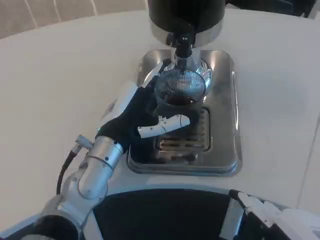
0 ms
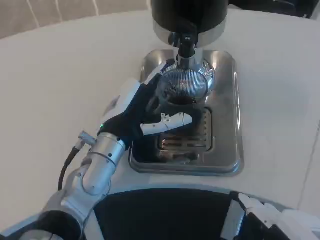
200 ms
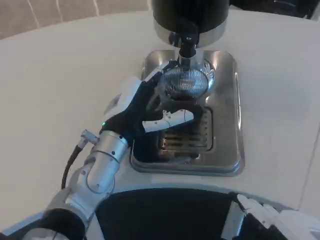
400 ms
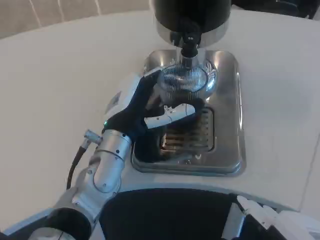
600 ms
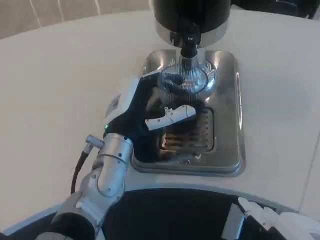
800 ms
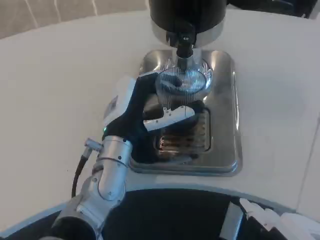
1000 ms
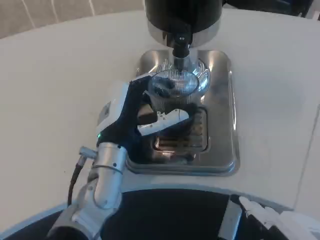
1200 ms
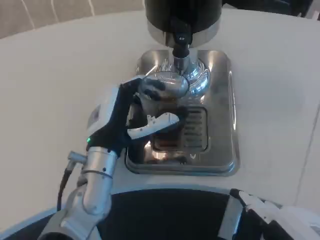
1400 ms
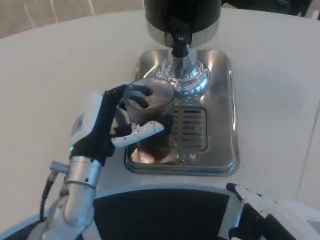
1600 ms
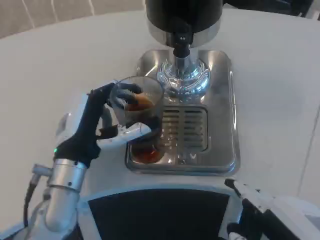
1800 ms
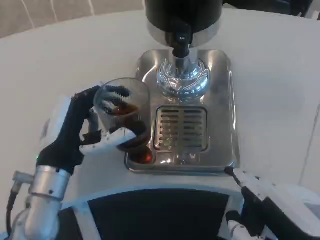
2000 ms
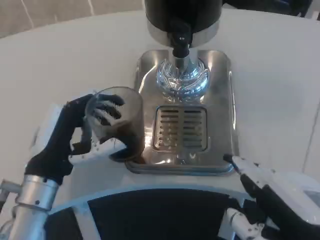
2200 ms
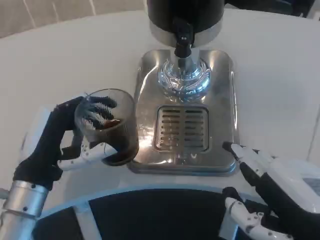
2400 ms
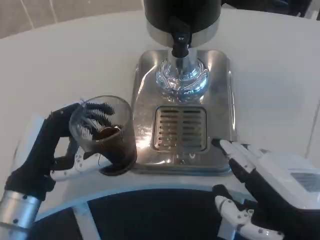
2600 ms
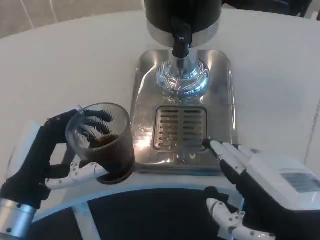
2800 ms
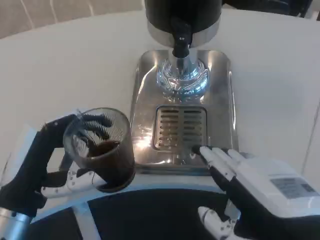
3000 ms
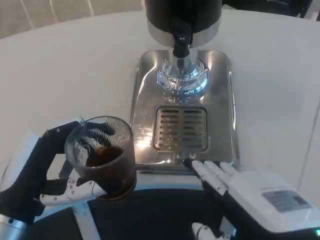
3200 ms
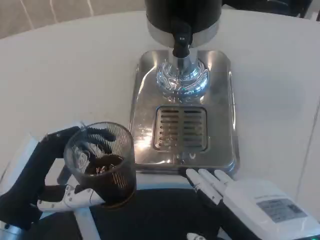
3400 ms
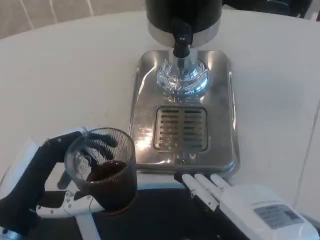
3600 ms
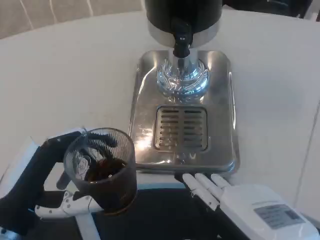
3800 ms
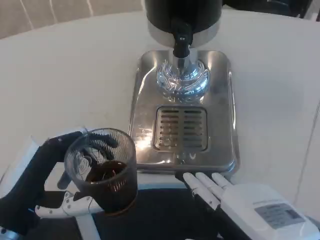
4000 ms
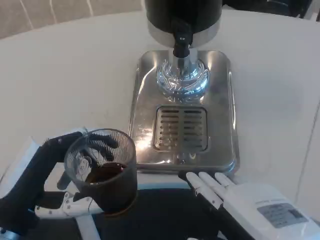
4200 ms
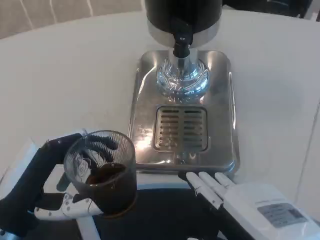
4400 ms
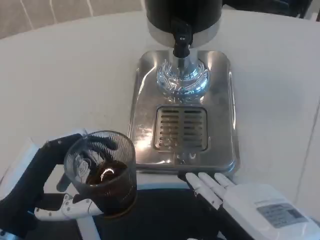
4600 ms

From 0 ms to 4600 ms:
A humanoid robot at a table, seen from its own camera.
Task of the whole recording: Grasp the cup under the faucet to collect the drink, then remove the cup.
From 0 ms to 1600 ms: The hands move only a little.
From 1600 ms to 3000 ms: The left hand travels backward and to the left by about 10 cm.

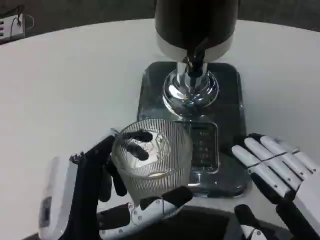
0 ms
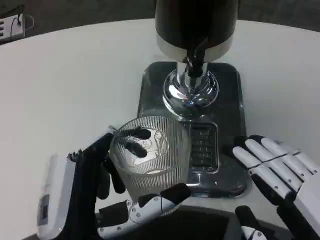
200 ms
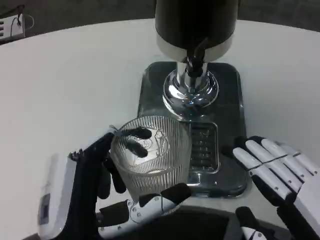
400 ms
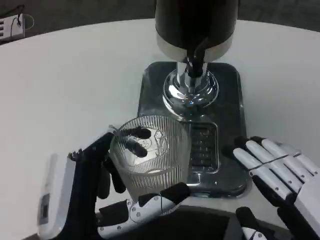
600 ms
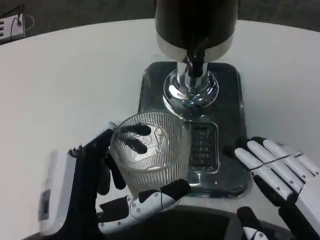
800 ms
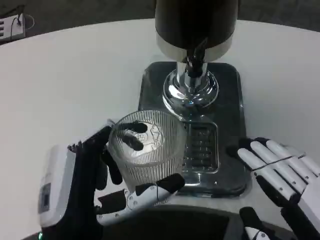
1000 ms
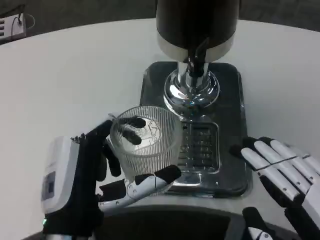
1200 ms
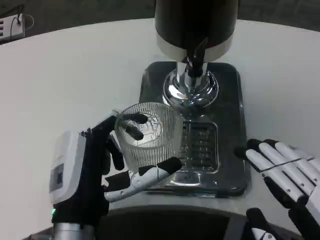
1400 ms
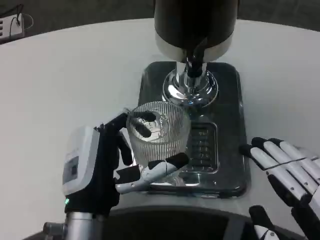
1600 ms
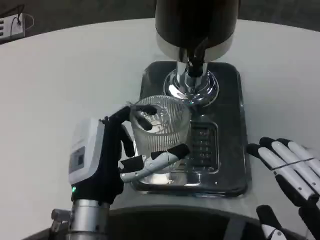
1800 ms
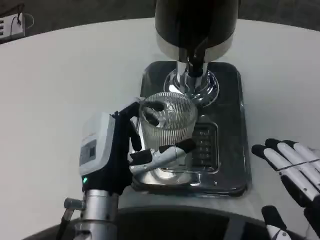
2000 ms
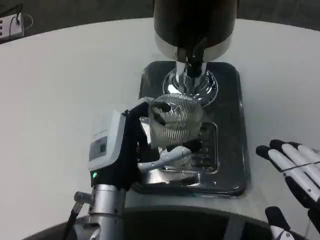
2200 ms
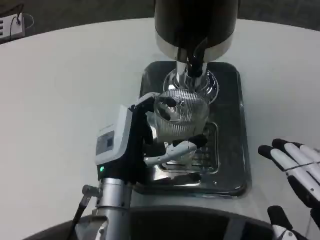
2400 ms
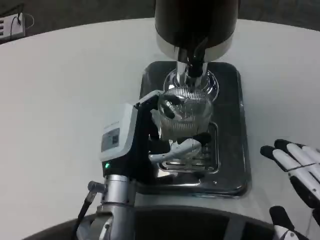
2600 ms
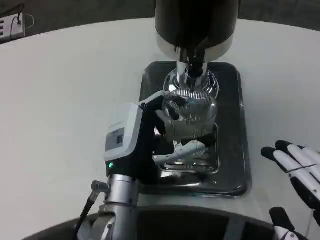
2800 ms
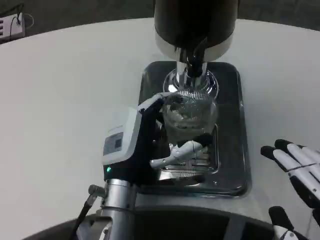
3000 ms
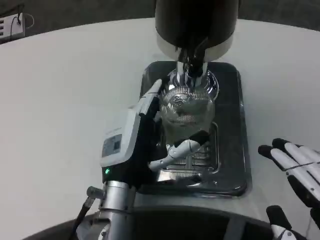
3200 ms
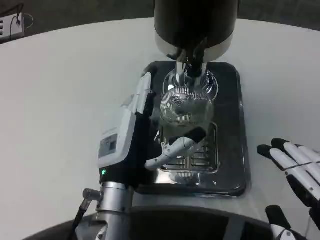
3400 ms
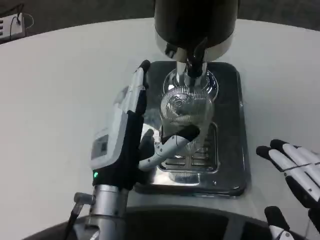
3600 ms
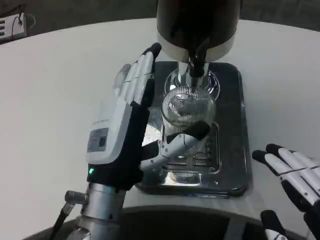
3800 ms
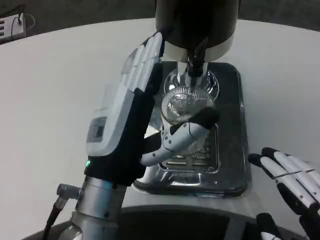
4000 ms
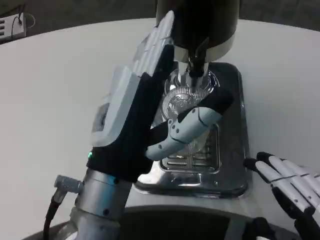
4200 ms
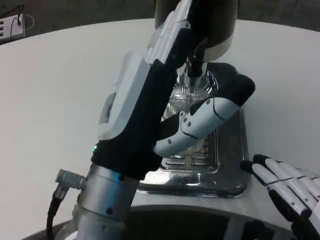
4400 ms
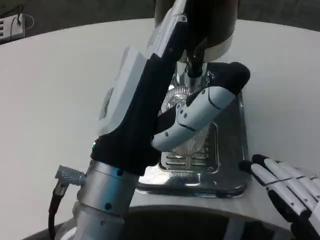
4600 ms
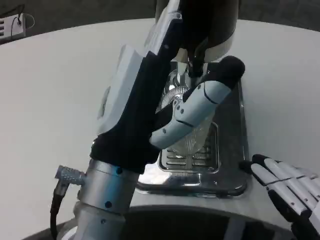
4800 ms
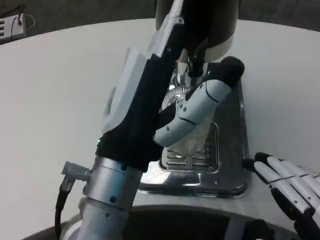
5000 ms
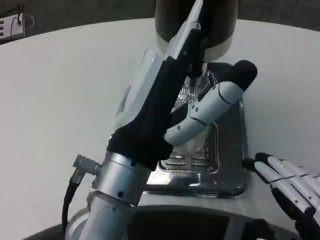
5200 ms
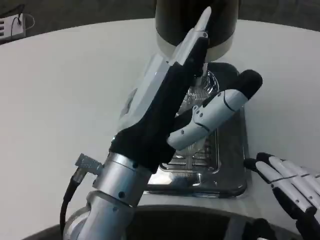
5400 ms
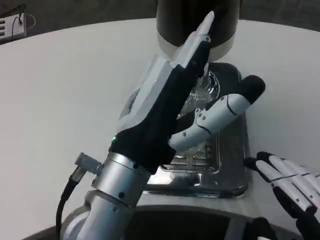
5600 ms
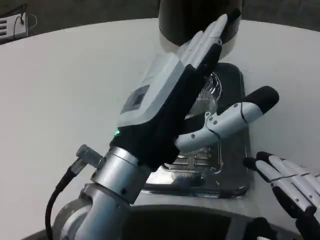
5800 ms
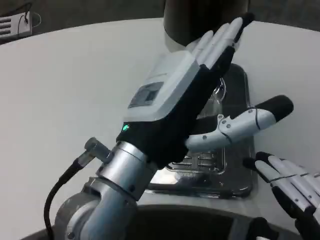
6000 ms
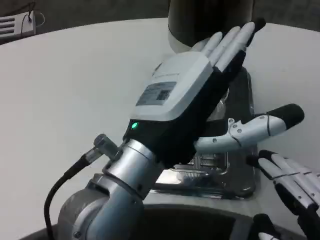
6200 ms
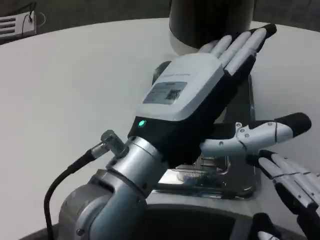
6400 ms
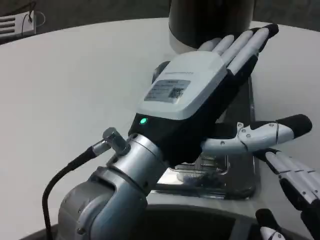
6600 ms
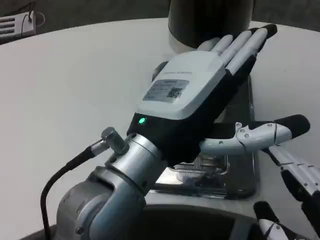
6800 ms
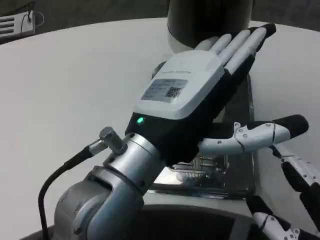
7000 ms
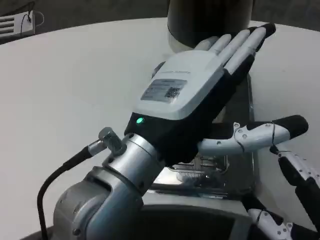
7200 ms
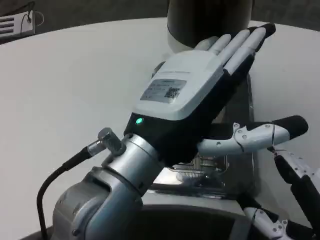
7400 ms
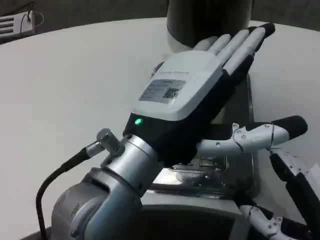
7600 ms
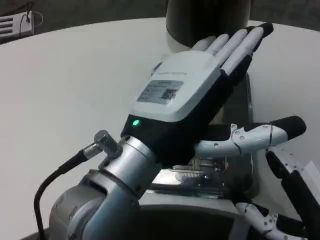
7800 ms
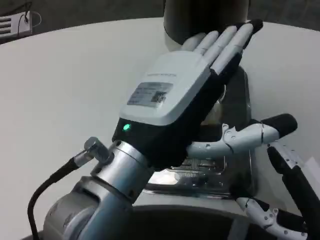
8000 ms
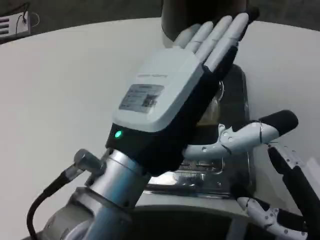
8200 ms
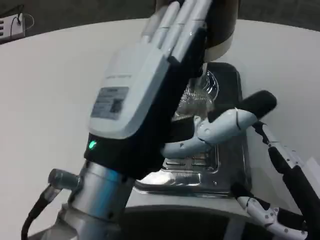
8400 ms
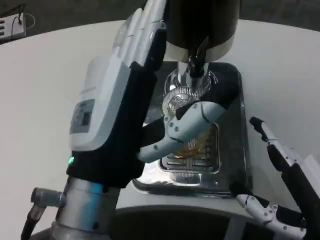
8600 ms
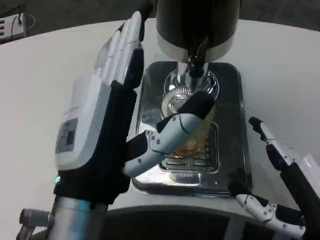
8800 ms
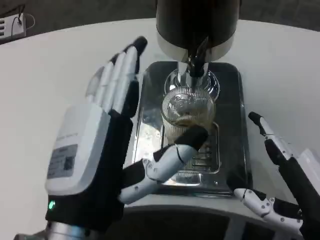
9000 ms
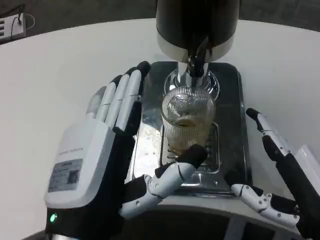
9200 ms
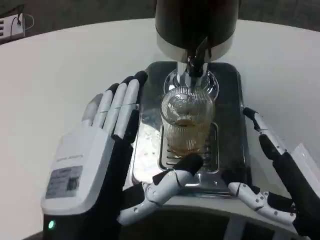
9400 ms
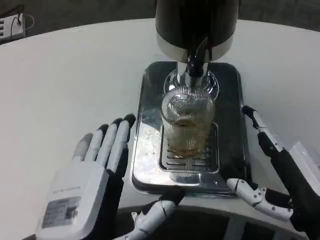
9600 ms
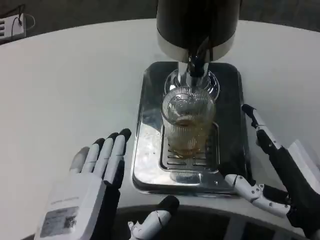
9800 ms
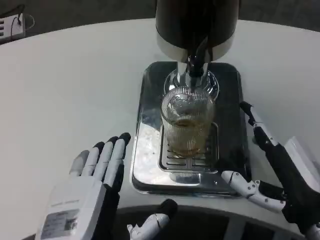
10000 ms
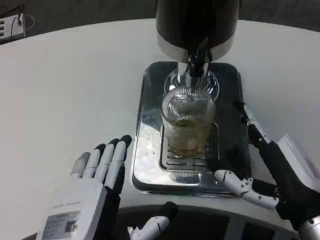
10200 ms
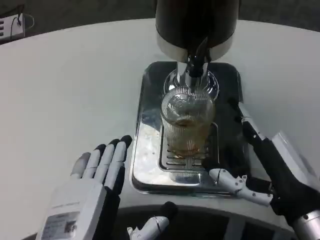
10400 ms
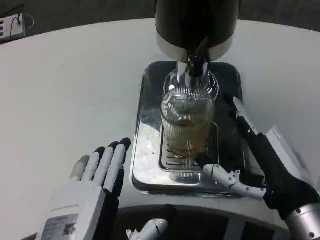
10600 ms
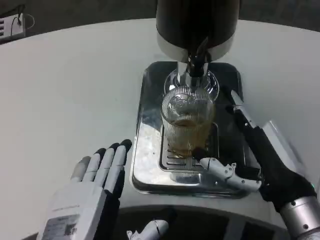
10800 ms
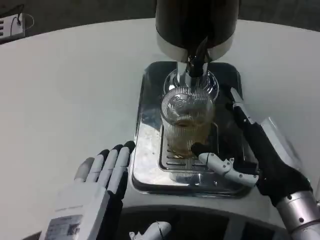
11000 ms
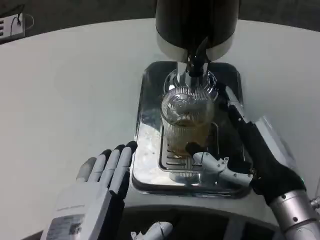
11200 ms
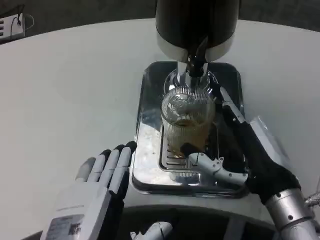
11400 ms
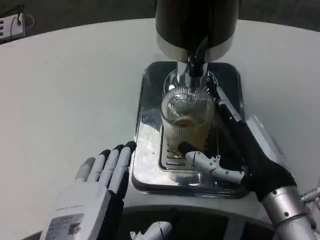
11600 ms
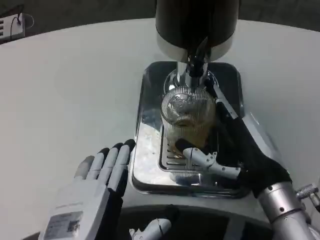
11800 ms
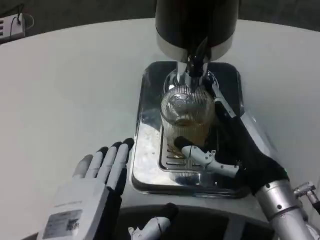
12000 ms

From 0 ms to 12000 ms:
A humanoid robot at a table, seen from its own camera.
Task of the whole recording: Grasp the cup under the faucet to collect the drink, then remove the cup.
From 0 ms to 1600 ms: The left hand goes approximately 10 cm forward.
From 1600 ms to 3000 ms: The left hand goes roughly 5 cm forward.
From 3000 ms to 4400 ms: The left hand travels upward and backward by approximately 15 cm.
From 6000 ms to 7600 ms: The right hand heads forward, covering approximately 5 cm.
From 7600 ms to 9000 ms: The left hand moves downward, about 5 cm.
From 9000 ms to 10400 ms: The left hand moves downward, roughly 5 cm.
From 10400 ms to 12000 ms: The right hand goes some 5 cm forward.

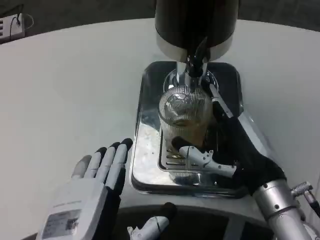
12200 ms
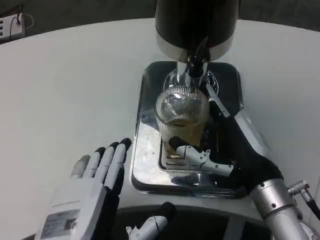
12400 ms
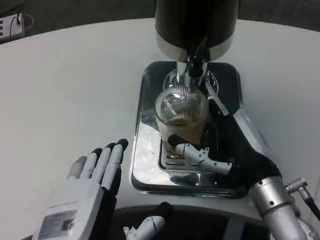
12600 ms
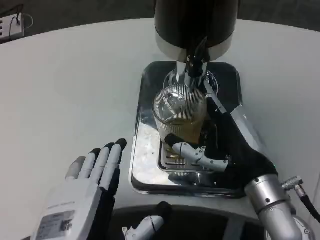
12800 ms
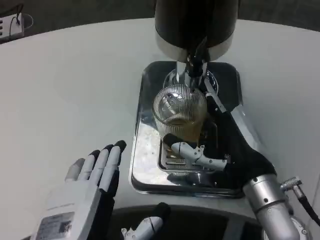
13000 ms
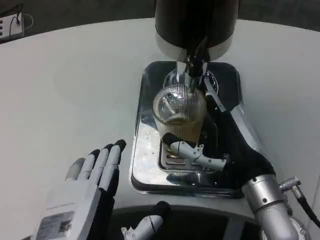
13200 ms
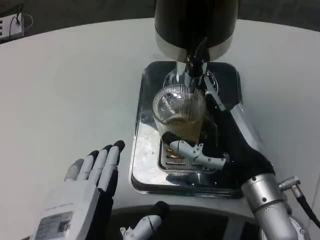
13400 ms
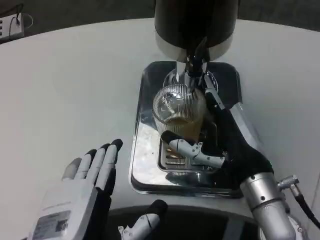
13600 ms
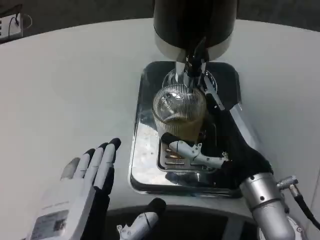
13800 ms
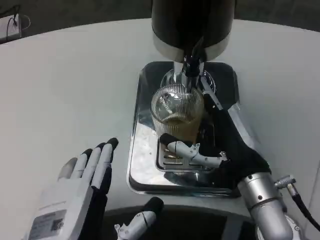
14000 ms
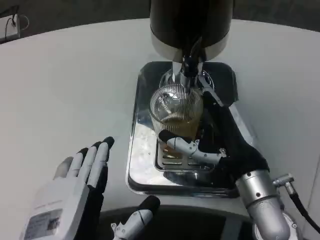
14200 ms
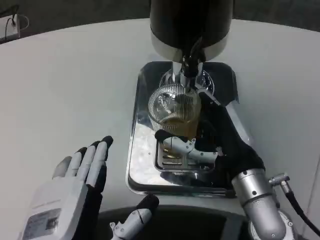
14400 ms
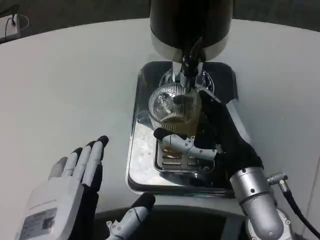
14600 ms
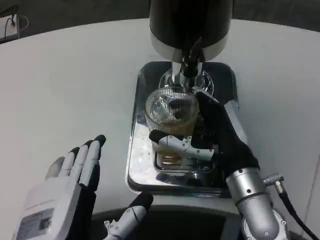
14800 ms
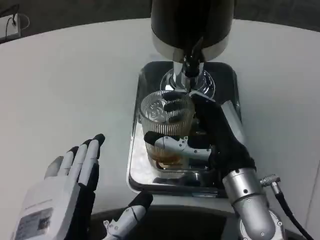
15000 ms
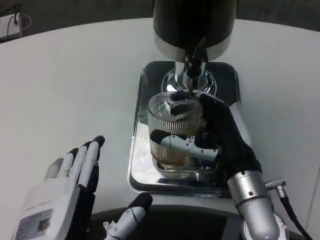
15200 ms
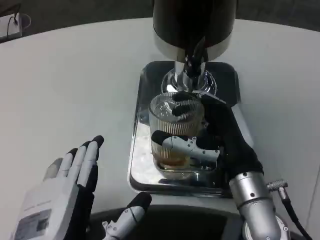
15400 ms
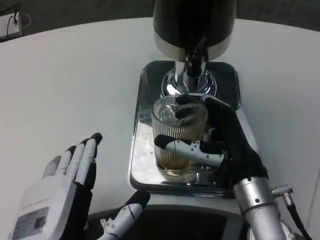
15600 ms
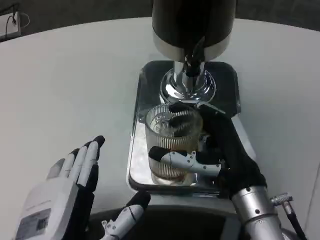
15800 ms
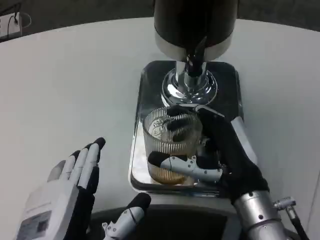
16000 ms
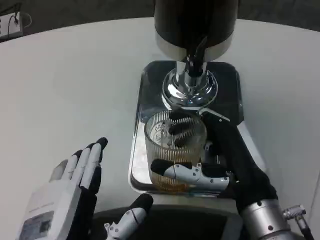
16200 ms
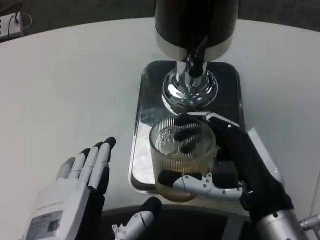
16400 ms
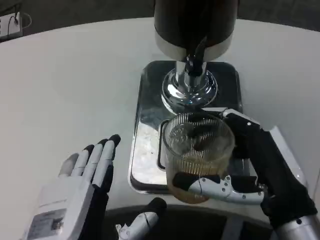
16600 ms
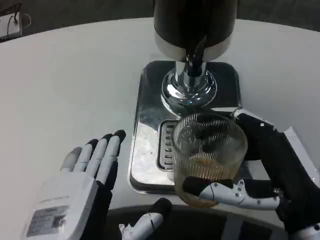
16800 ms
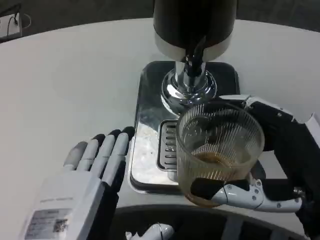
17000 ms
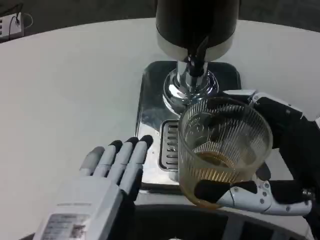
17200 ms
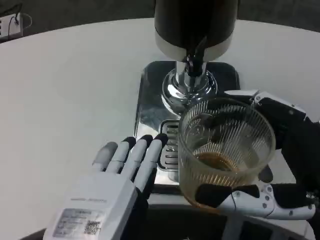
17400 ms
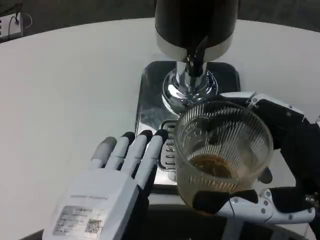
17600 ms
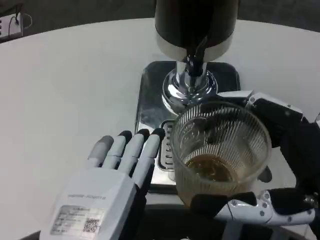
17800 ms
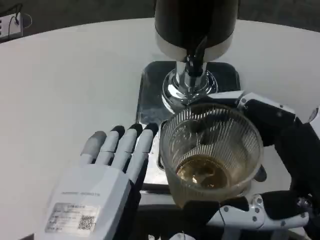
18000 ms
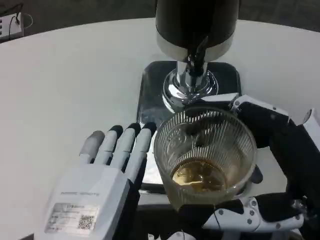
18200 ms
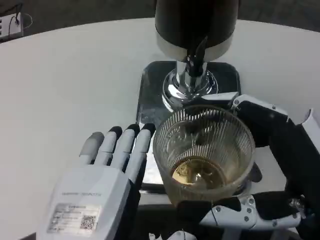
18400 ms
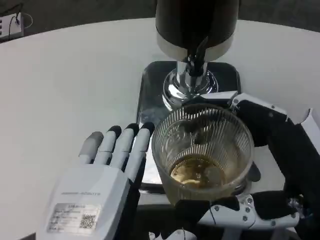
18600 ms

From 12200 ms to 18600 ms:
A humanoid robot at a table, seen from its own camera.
Task of the whole recording: Grasp the cup under the faucet to collect the drink, then remove the cup.
From 12200 ms to 15400 ms: The hands move only a little.
From 15400 ms to 17000 ms: The right hand shifts approximately 15 cm backward and to the right.
